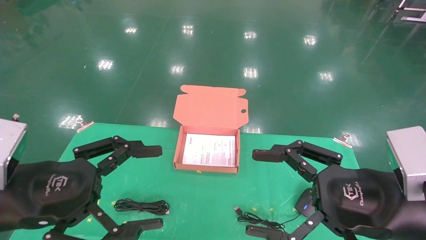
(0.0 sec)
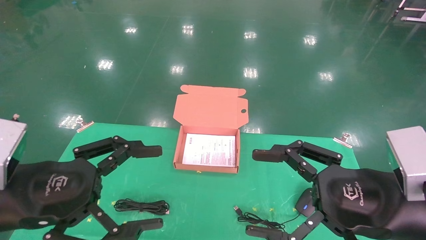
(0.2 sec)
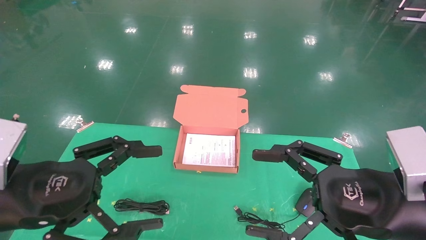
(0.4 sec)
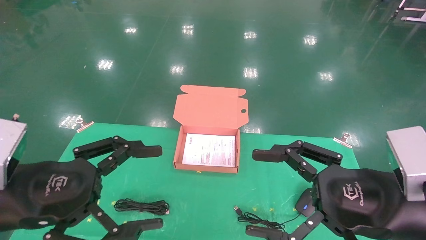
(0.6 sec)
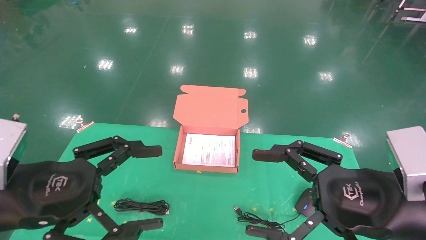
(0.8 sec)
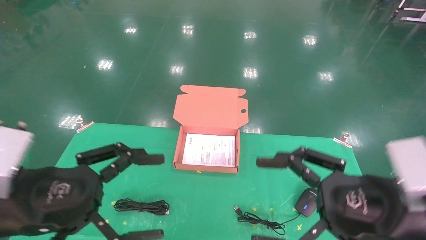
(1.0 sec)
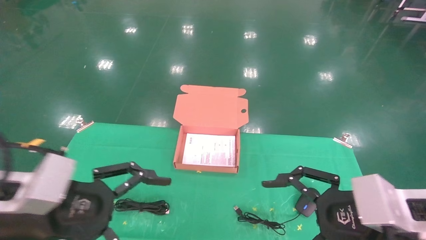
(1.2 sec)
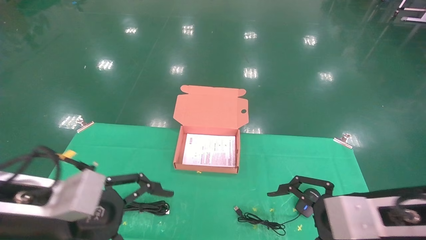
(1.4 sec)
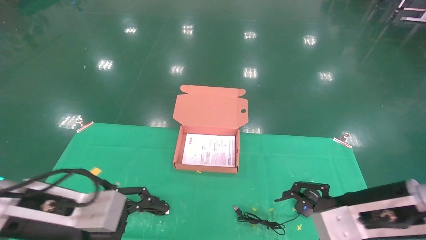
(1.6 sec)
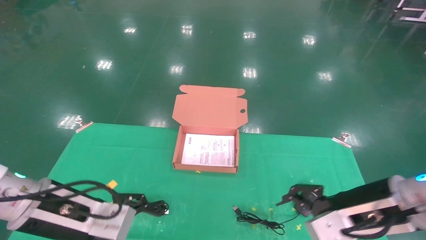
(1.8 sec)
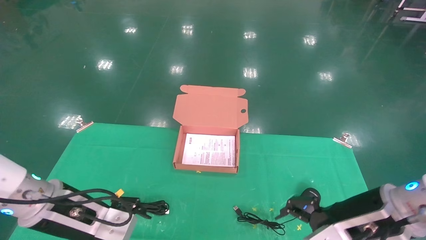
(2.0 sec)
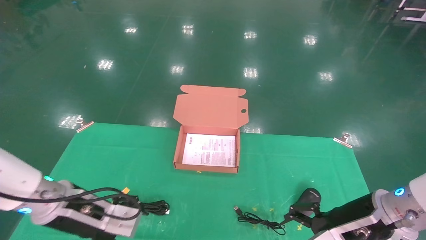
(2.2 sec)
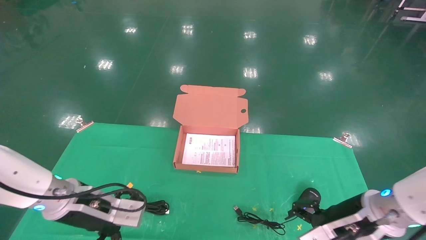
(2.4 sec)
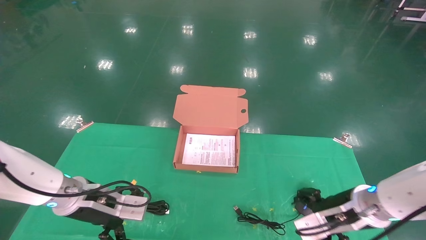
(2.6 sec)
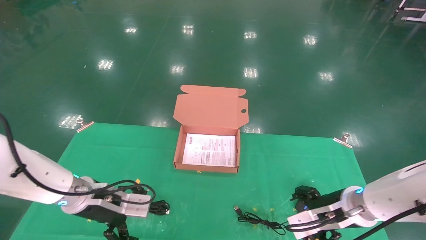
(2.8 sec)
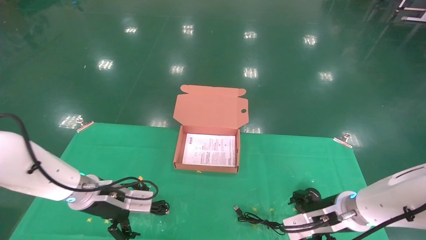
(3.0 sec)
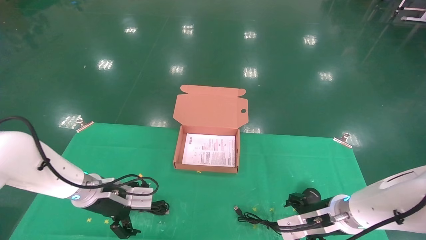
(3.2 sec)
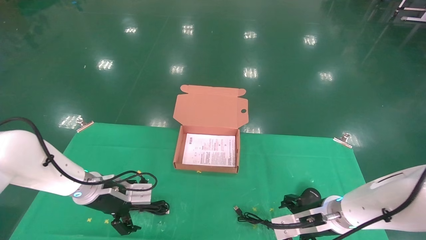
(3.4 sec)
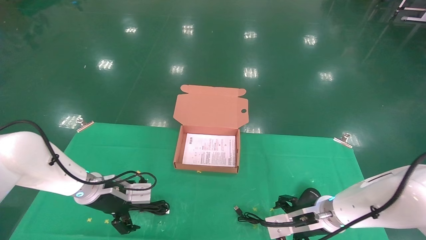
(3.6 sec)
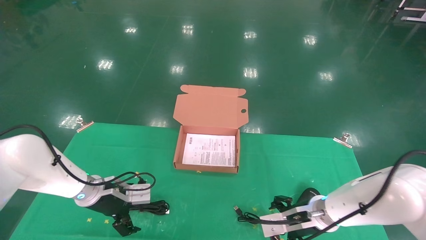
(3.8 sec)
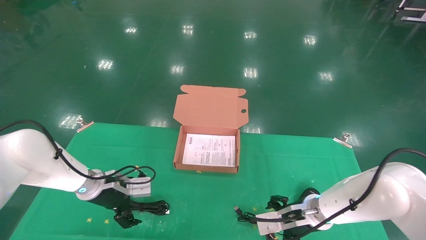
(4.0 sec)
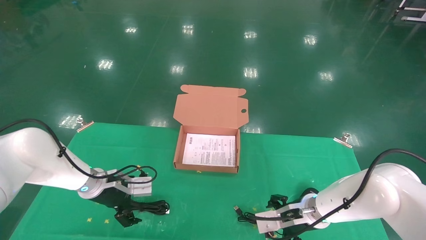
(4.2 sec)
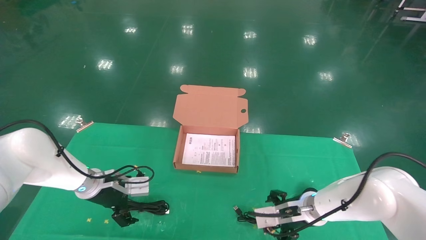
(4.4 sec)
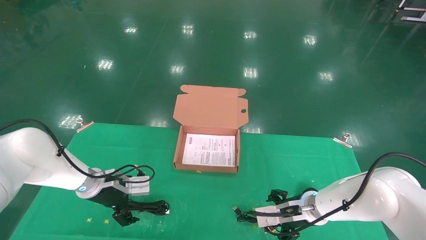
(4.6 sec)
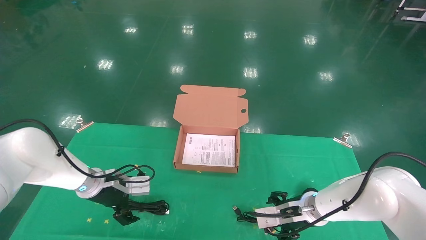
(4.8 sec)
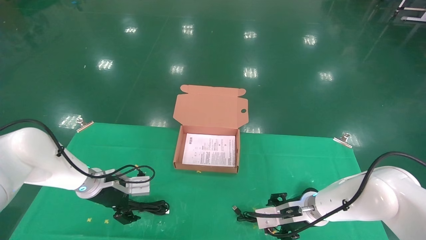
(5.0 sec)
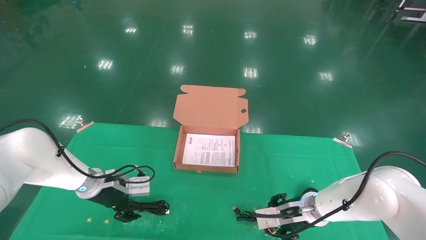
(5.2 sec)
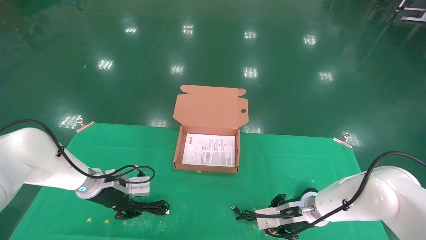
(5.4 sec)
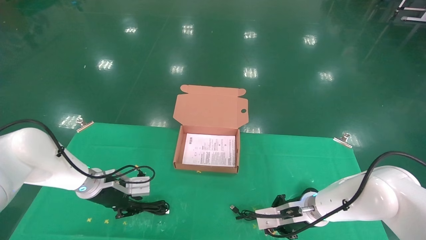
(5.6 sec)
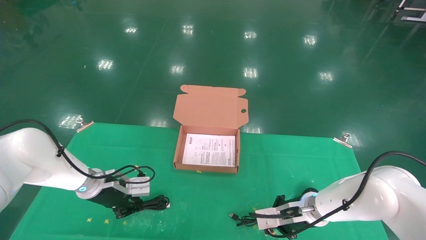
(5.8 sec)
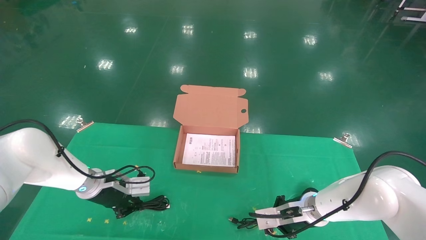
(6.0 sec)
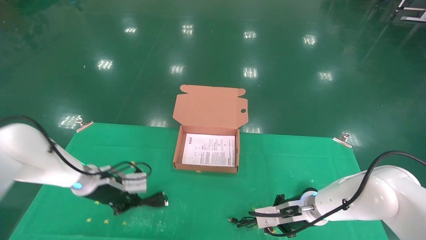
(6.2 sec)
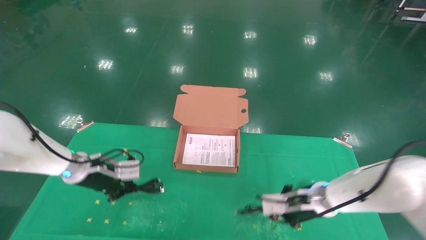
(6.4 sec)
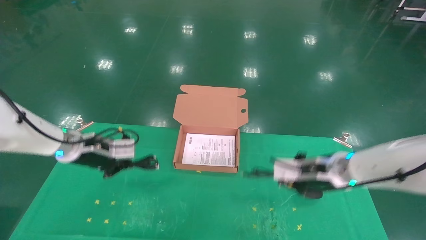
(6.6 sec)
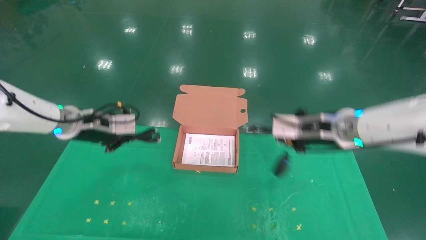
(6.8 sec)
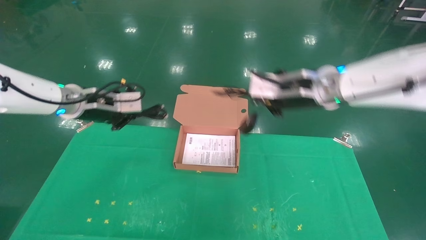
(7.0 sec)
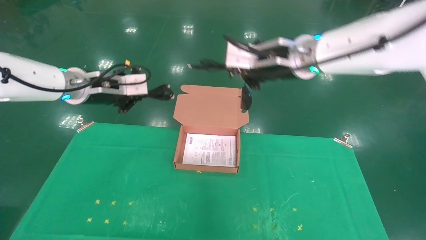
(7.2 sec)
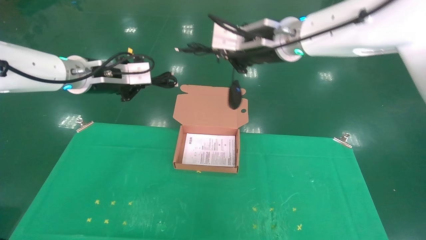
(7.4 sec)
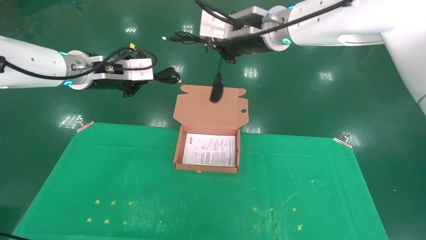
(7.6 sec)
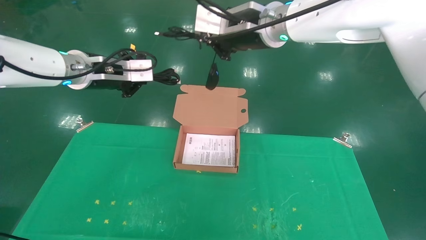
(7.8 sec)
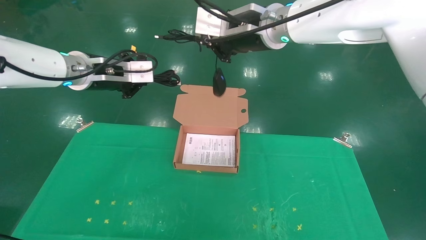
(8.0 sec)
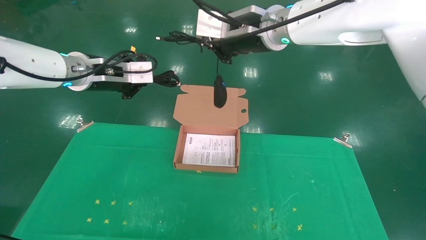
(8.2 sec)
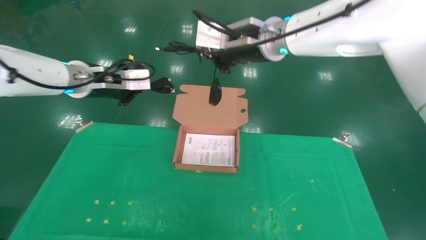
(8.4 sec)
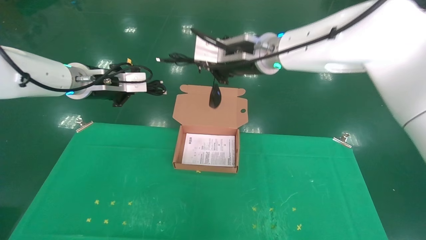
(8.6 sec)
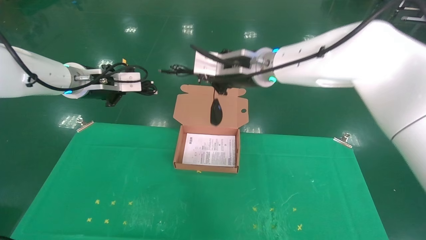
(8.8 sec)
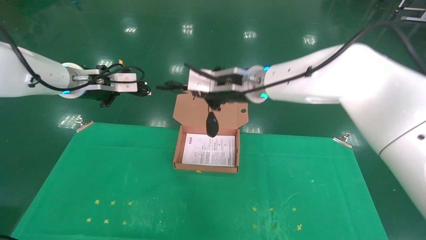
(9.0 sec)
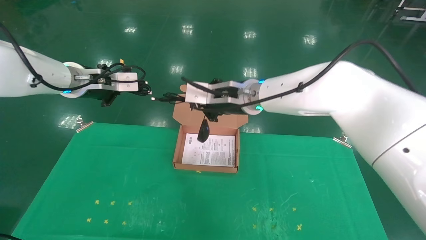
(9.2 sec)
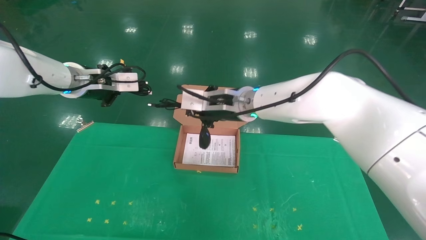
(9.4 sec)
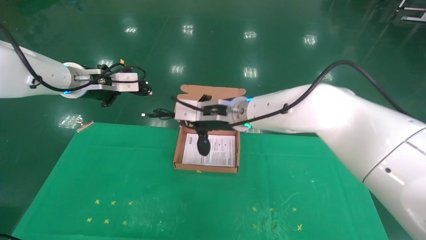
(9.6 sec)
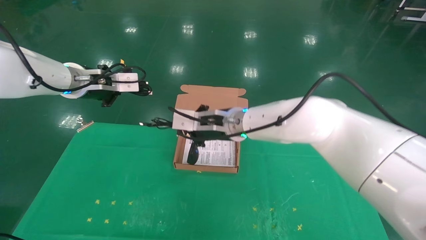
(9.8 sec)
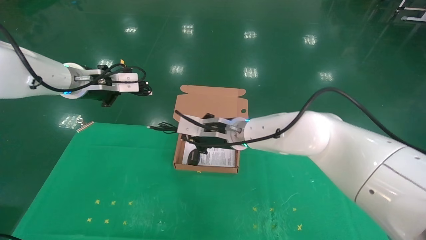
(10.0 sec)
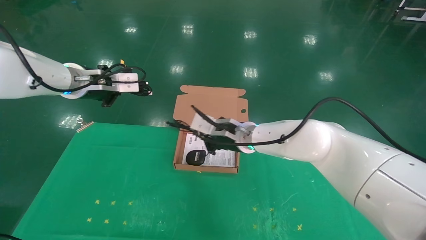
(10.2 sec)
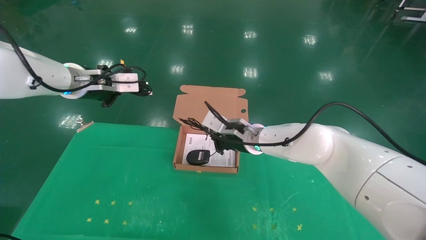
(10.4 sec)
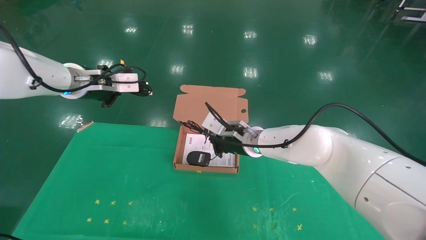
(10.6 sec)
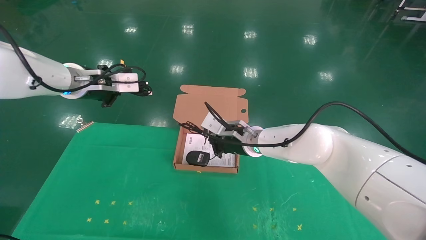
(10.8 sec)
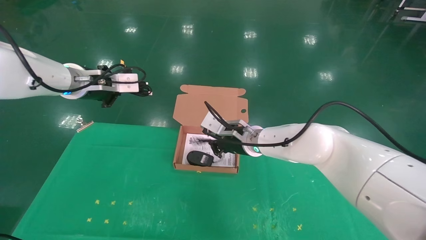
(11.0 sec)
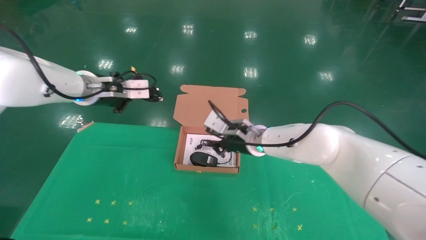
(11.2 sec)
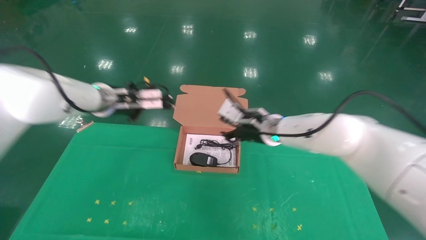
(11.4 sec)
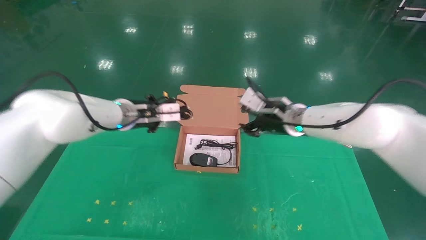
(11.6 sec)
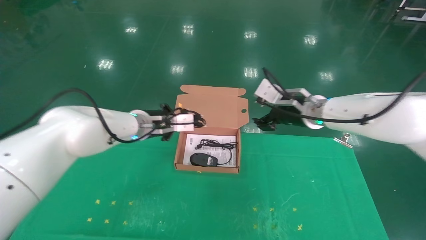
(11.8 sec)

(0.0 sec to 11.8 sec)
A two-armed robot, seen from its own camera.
Task of the whole recording: grasp data cable left put into box grasp mouse right put into box.
Step, 1.2 sec - 6.4 sec: Grab and pick up both the mouse and power cord from the accessory packaging area at the same time.
1.4 sec - 3.0 sec: The two grippers go roughly 20 cm forward and downward.
3.0 sec - 4.4 sec: Both grippers travel together forward, roughly 5 cm.
4.4 sec - 6.0 sec: The right gripper closes. The left gripper closes.
6.0 sec - 7.4 sec: Both grippers travel together upward, approximately 30 cm.
7.4 sec - 8.8 sec: The right gripper moves downward, roughly 10 cm.
8.8 sec - 10.4 sec: The right gripper heads downward, covering roughly 15 cm.
10.4 sec - 11.8 sec: The right gripper goes some 15 cm to the right and upward, and opens; the left gripper moves to the right and downward, about 15 cm.

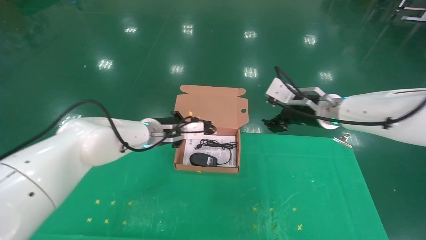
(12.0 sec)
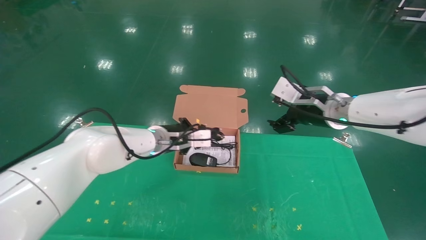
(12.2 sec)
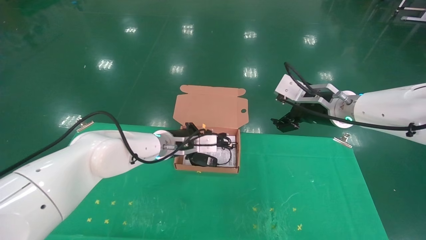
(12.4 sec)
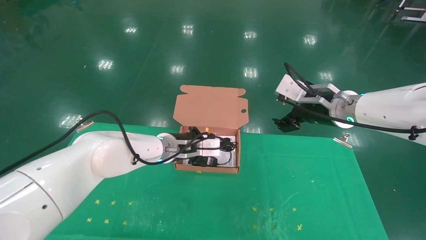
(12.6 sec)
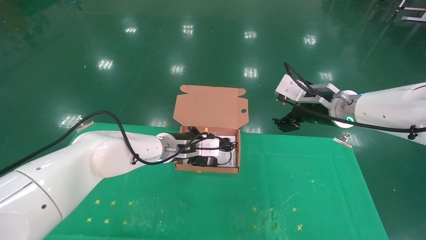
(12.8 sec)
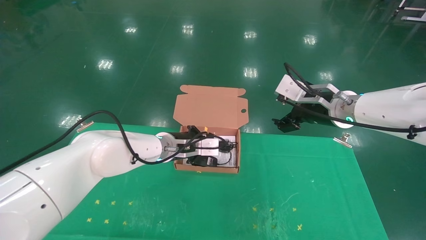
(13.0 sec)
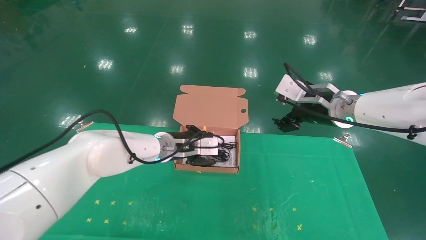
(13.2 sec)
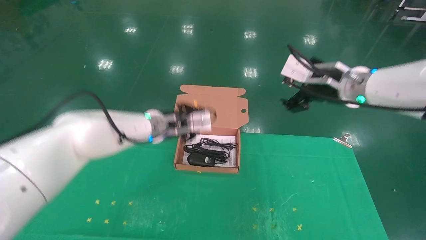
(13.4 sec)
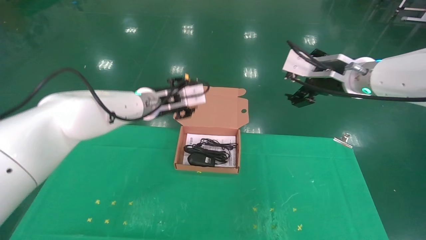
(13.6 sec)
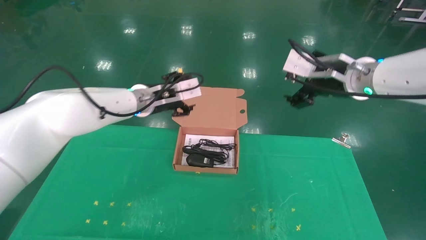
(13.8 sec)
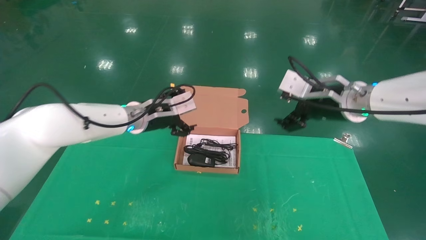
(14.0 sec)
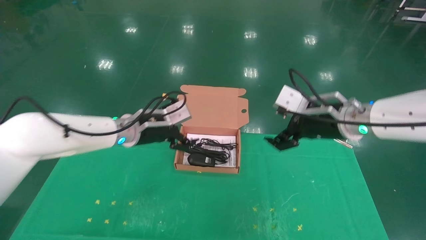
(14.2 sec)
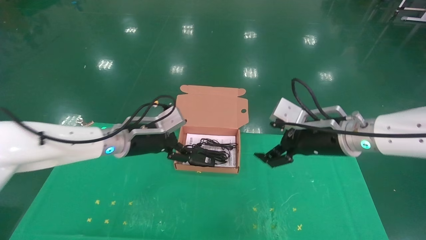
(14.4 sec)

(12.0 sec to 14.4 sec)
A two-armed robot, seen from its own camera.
Task of the whole recording: grasp data cable left put into box grasp mouse right put into box.
12.0 sec - 13.2 sec: The grippers stay close to where they were, moving slightly.
13.2 sec - 14.4 sec: The left gripper moves to the left and backward, roughly 10 cm, and opens up. The right gripper shifts some 10 cm downward and backward.
